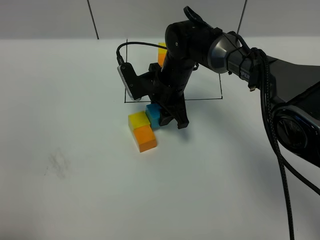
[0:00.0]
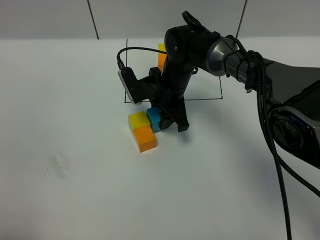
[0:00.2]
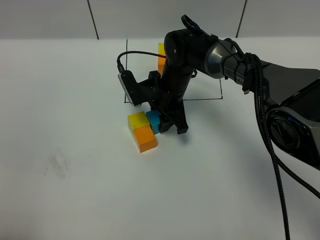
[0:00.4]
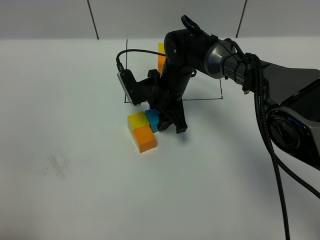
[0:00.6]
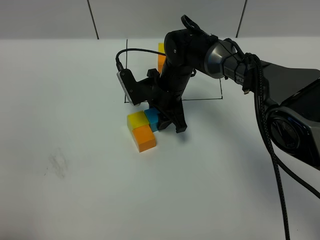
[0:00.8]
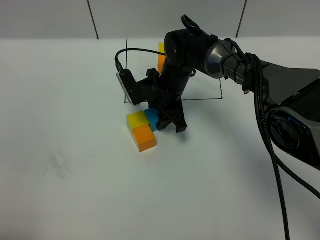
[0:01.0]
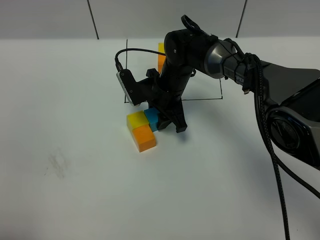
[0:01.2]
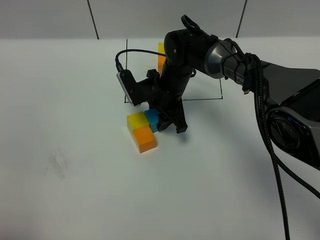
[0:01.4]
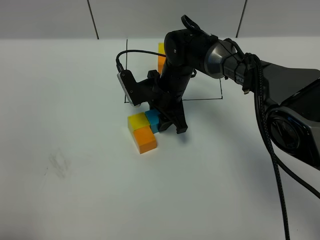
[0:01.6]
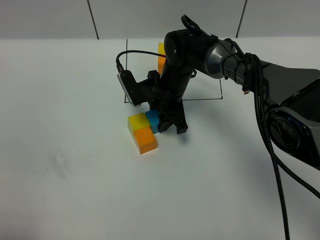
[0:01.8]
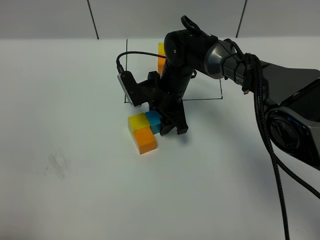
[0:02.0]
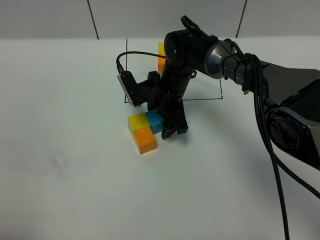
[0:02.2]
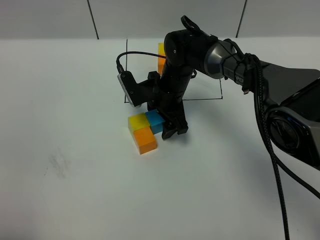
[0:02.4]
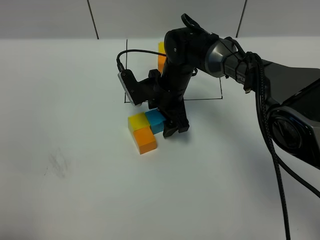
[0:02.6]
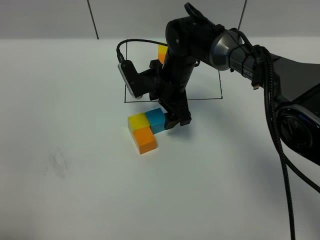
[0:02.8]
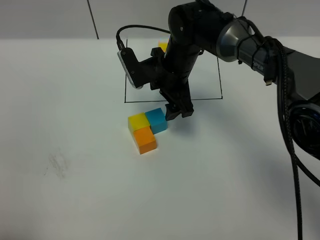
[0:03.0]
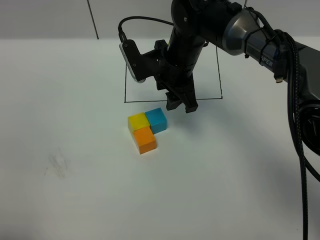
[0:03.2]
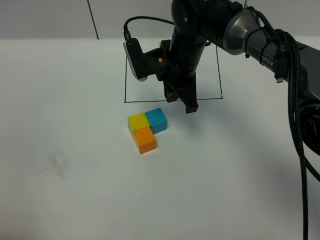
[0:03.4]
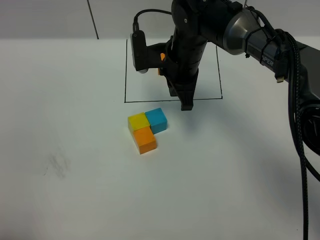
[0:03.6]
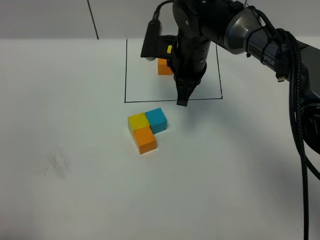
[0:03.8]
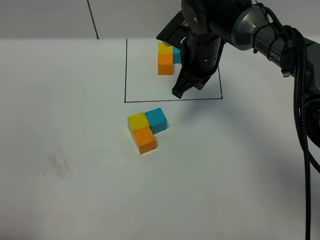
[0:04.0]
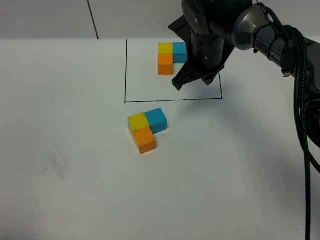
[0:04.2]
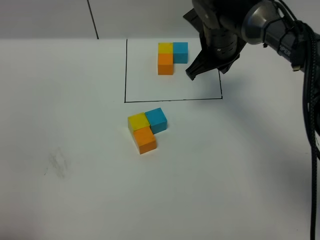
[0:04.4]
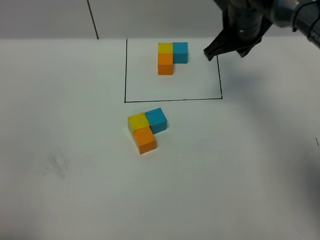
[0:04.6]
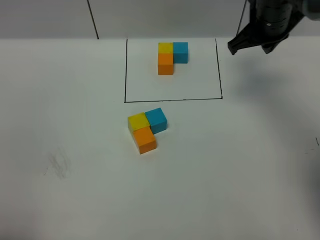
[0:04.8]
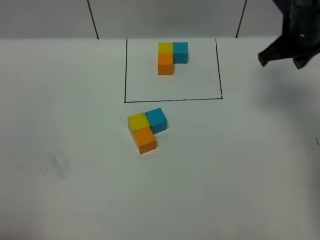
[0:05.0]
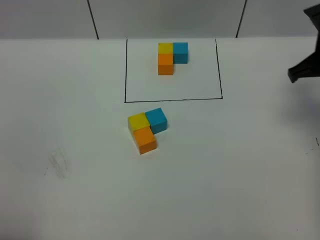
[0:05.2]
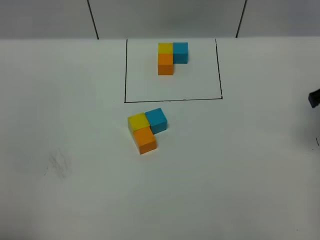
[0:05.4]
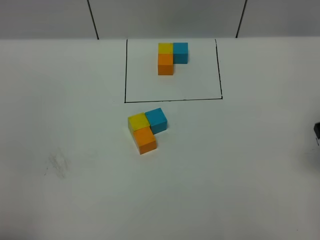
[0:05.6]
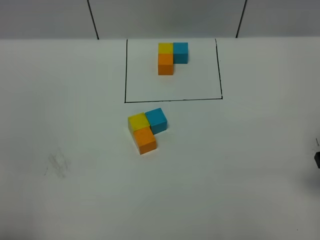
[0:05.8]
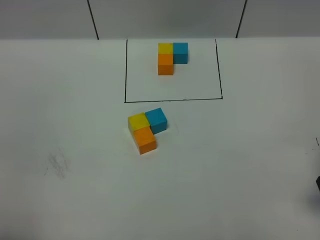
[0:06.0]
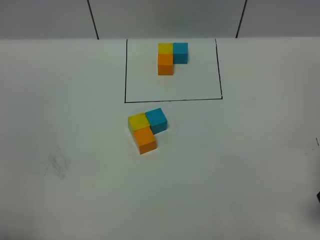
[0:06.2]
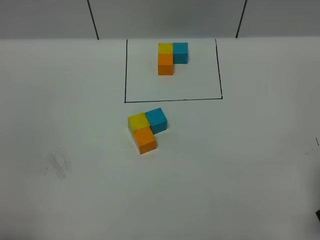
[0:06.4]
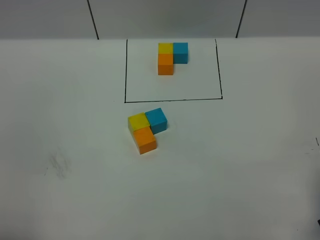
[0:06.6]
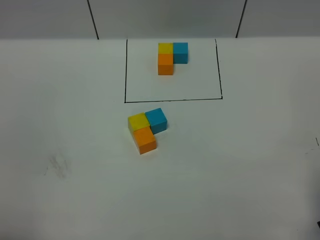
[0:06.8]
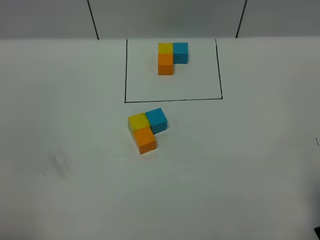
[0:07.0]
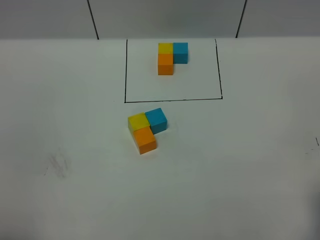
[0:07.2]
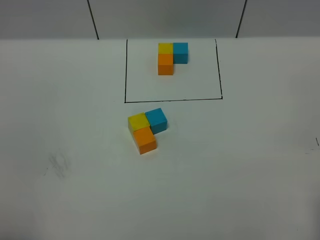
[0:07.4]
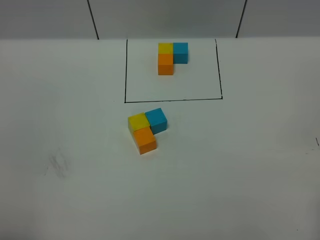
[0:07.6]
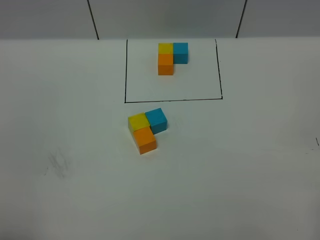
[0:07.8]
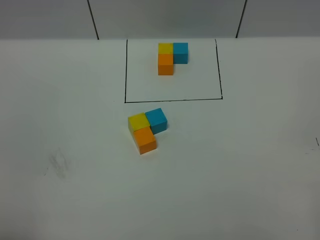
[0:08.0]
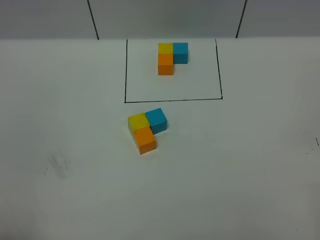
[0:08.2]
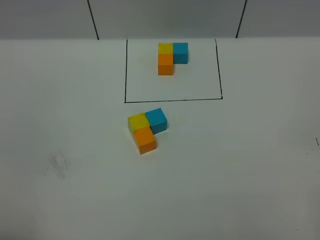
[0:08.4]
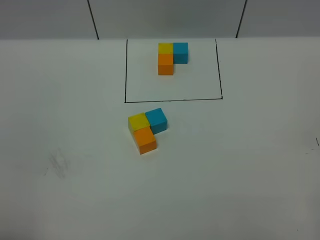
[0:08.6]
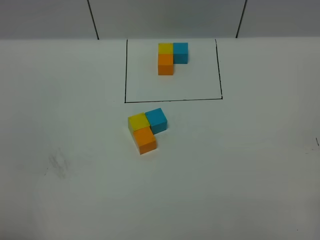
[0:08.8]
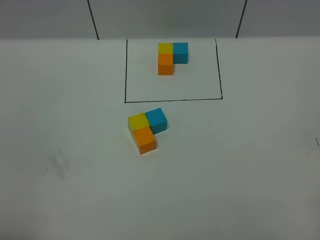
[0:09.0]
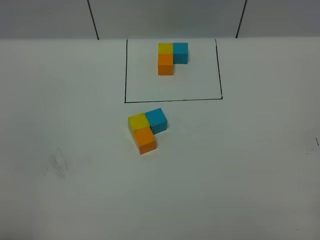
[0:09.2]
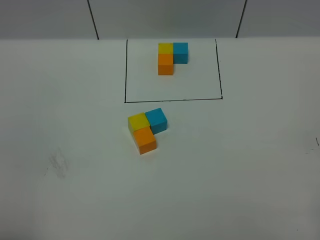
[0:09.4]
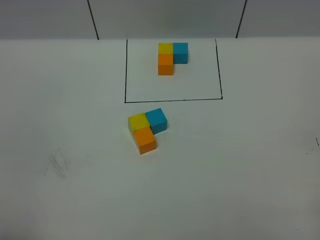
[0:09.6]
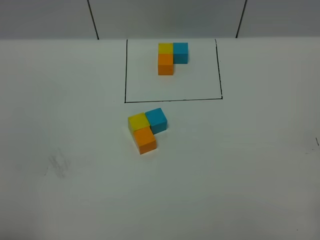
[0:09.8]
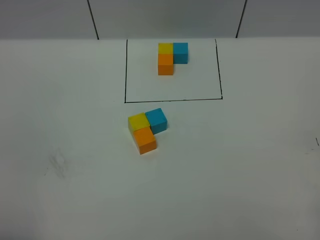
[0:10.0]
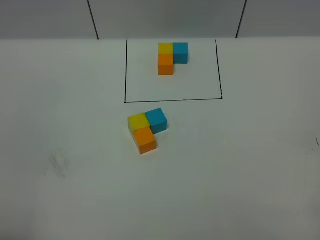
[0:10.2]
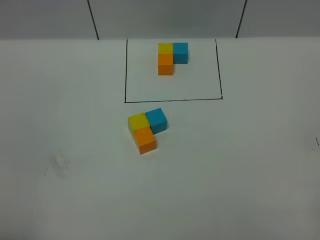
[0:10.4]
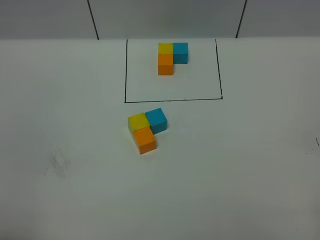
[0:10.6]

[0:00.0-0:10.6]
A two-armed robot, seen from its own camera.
Task of the whole recording: According to the building block template in front, assemble the scattered blocks together.
Step, 0:00.0 to 0:03.2: Put the blue cube on the right of the yellow cube.
0:00.0 to 0:01.6: There are only small adjustments of the grippers.
0:01.6 to 0:03.0: The right gripper heads upward, covering about 5 cm, and opens up.
0:03.0 to 0:04.6: The right gripper shifts roughly 15 cm to the right and upward, and closes.
0:04.6 to 0:06.0: The right gripper travels backward and to the right by some 30 cm.
0:09.0 to 0:10.6: Neither gripper changes place.

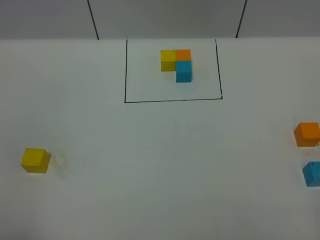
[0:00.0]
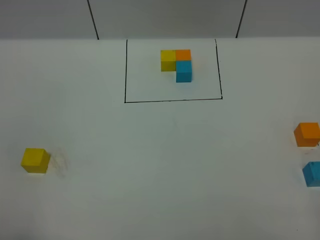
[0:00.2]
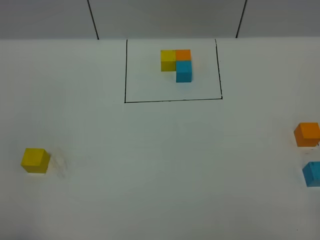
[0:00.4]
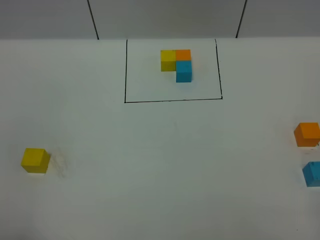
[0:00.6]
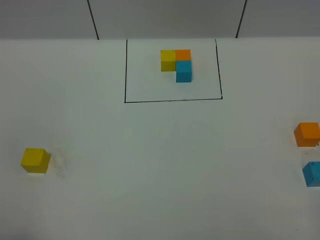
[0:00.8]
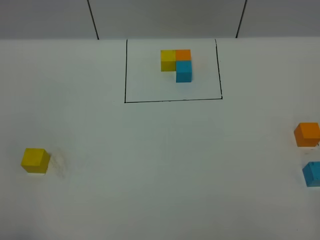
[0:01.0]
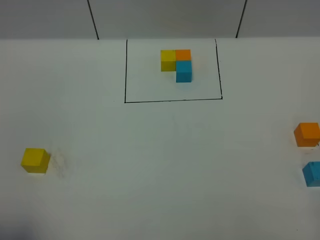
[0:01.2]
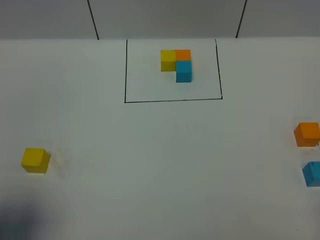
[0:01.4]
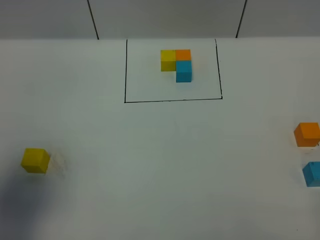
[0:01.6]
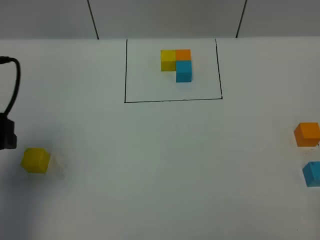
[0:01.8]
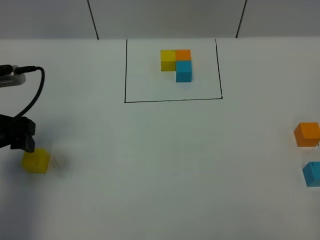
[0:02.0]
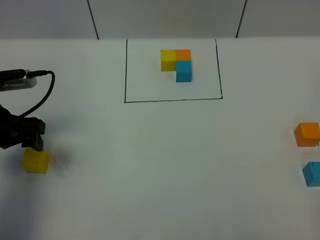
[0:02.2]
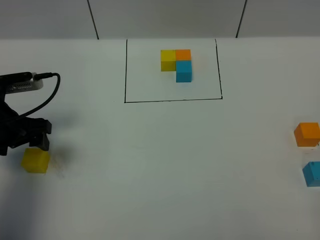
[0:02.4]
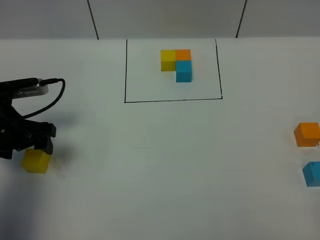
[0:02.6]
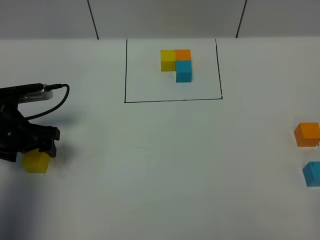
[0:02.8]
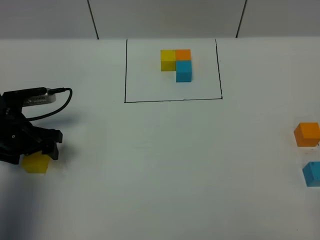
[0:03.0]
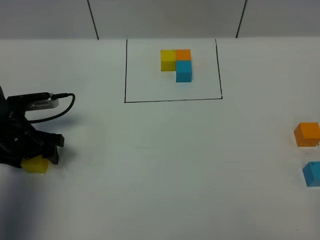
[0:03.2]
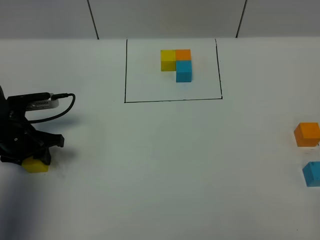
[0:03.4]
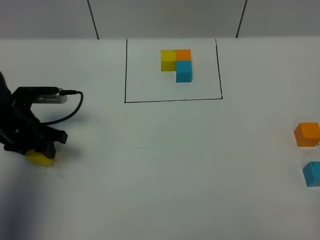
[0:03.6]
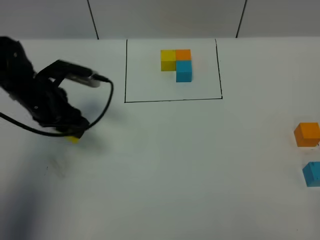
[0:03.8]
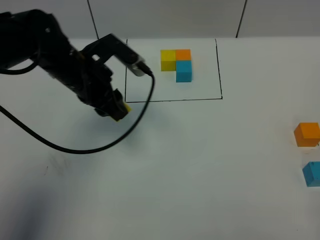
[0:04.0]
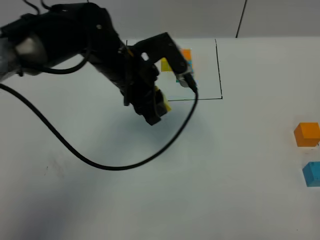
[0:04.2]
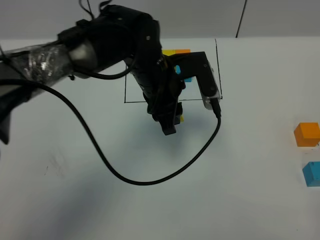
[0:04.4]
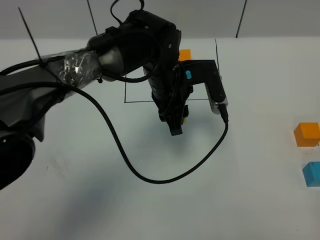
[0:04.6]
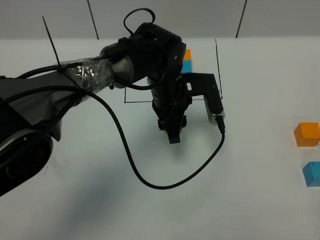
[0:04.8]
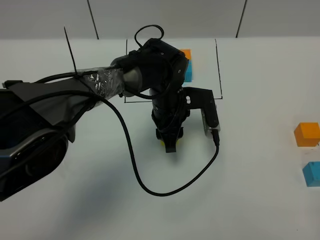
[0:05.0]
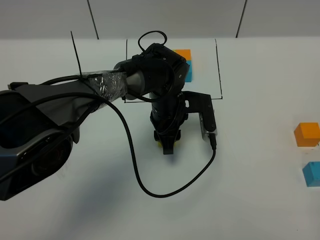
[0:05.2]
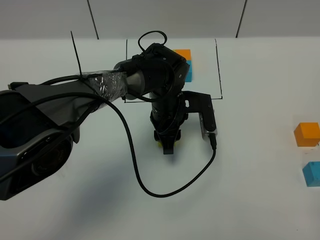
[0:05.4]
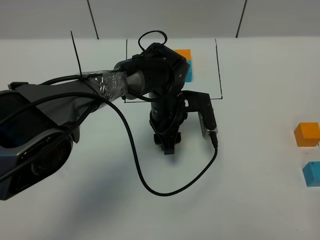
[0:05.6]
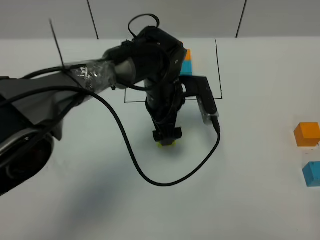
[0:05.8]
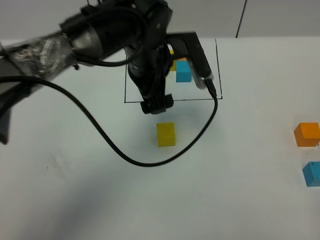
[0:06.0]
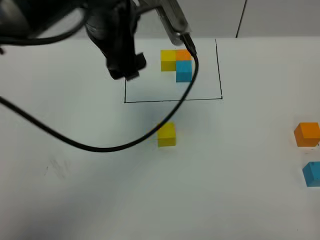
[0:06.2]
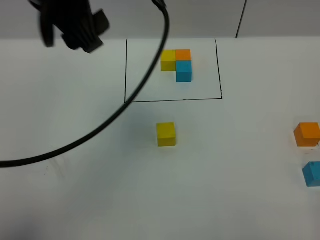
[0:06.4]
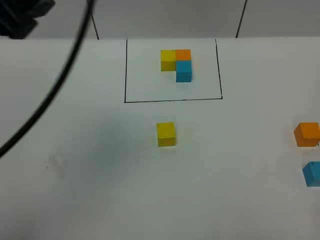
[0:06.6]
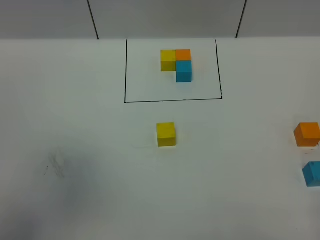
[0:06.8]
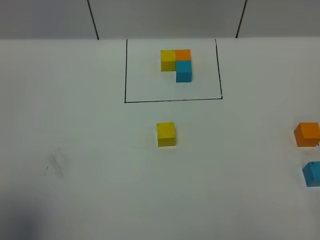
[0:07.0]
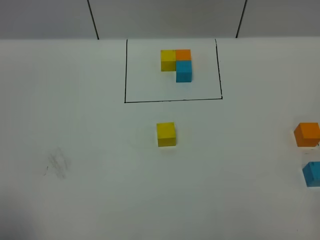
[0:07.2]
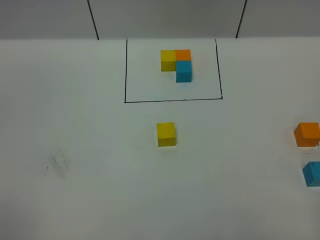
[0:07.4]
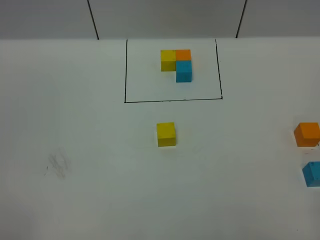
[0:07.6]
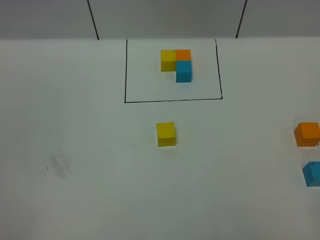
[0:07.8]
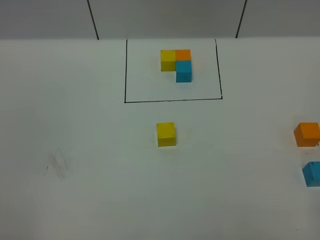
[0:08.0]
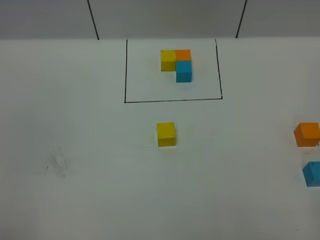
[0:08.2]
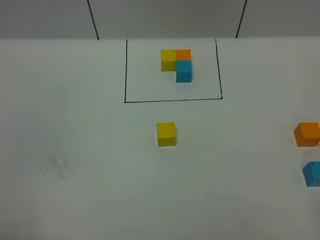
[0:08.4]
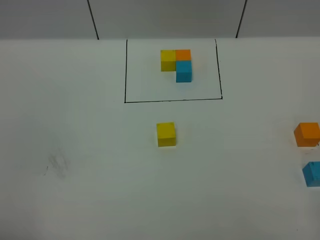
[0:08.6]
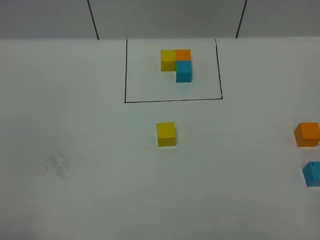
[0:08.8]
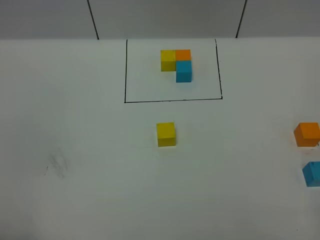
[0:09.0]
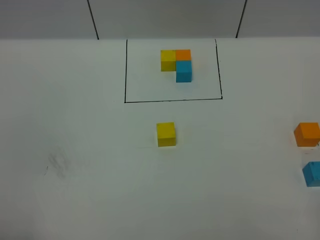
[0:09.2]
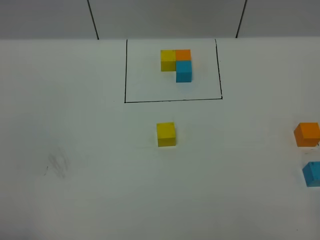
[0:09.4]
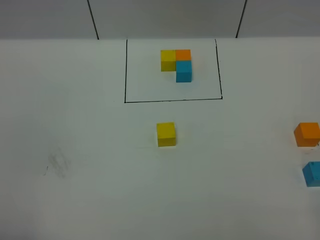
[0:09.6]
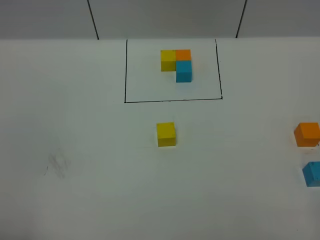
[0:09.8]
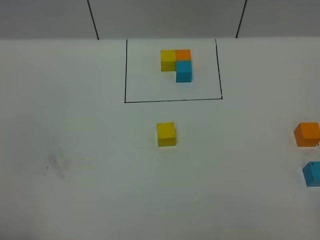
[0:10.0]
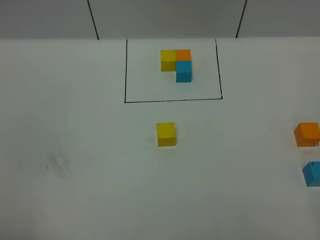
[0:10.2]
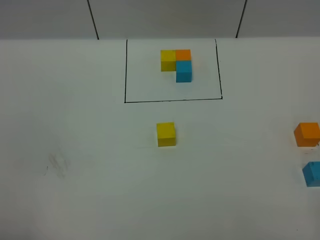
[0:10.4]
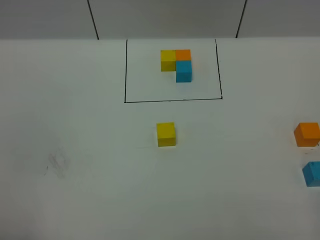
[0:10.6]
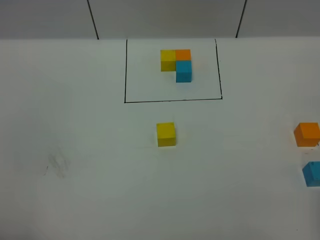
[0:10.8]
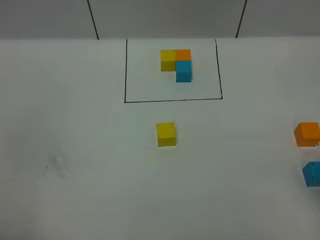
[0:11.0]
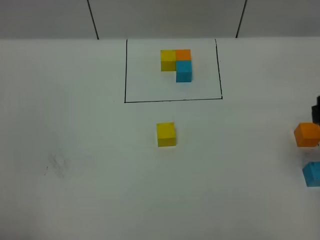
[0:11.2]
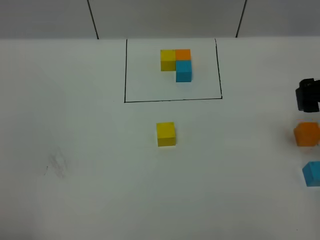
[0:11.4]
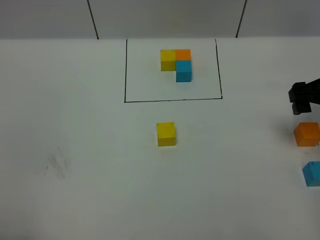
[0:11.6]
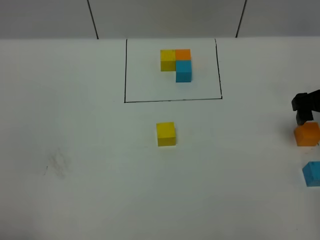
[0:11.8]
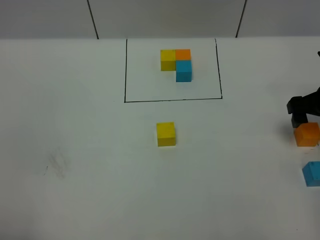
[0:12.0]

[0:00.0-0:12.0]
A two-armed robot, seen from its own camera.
Task of the whole recording: According to the building block template in front, assemble the scattered blocks together.
Step, 0:01.8 to 0:05.8: Put the yellow cube in the center of the table.
0:00.0 to 0:01.6: The left gripper moves forward, approximately 15 cm.
0:01.6 to 0:03.0: The left gripper heads downward and forward, covering roughly 25 cm.
0:03.0 to 0:04.4: The left gripper moves to the right, approximately 30 cm, and closes its fingers.
0:04.4 to 0:06.0: The left gripper heads upward, covering roughly 5 cm, and opens its fingers.
0:06.0 to 0:07.6: The left gripper heads backward and to the left, covering roughly 50 cm.
0:09.0 to 0:10.4: The two grippers keep their place.
0:10.4 to 0:12.0: The right gripper is displaced forward by roughly 35 cm, and opens up.
